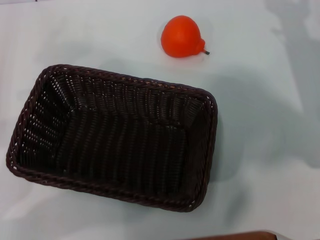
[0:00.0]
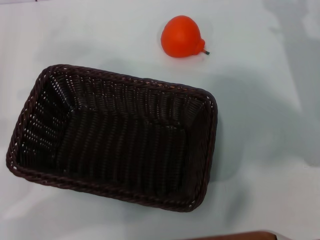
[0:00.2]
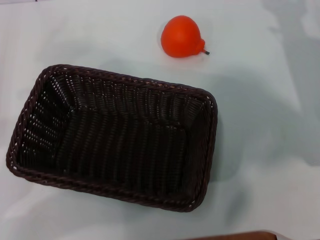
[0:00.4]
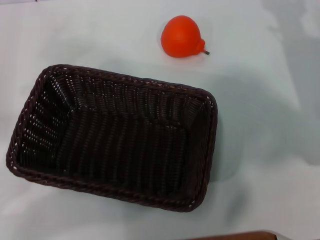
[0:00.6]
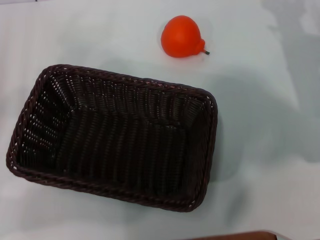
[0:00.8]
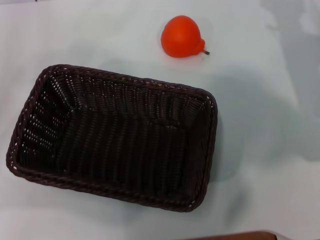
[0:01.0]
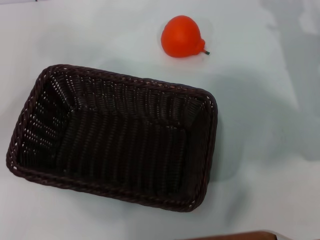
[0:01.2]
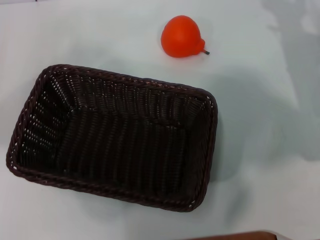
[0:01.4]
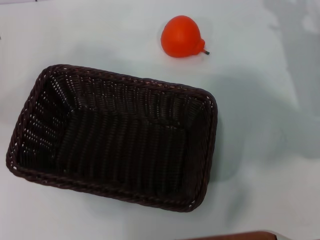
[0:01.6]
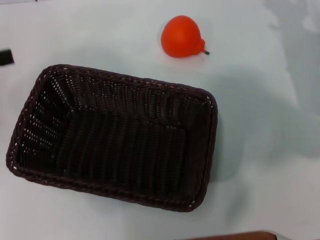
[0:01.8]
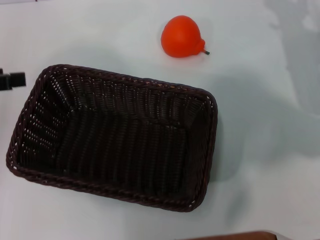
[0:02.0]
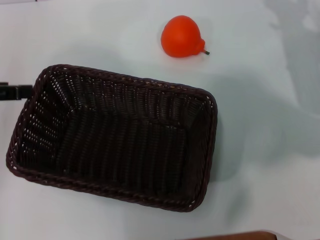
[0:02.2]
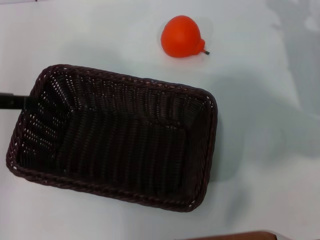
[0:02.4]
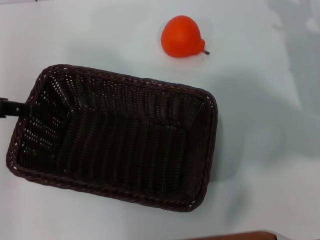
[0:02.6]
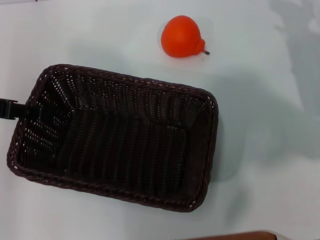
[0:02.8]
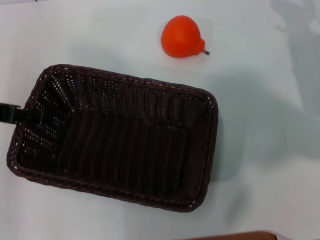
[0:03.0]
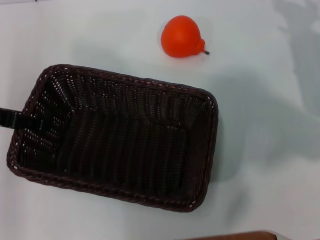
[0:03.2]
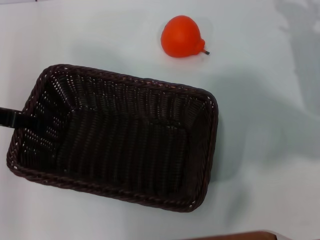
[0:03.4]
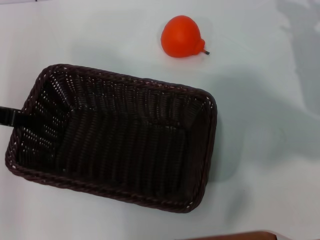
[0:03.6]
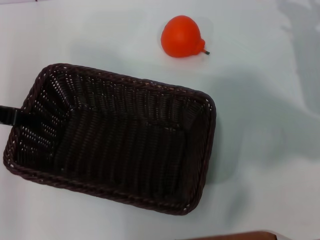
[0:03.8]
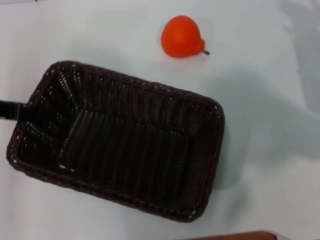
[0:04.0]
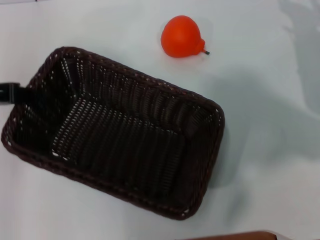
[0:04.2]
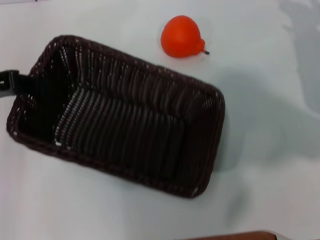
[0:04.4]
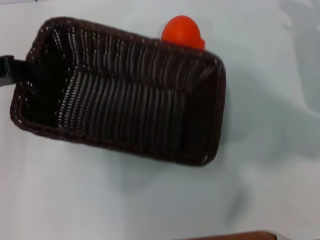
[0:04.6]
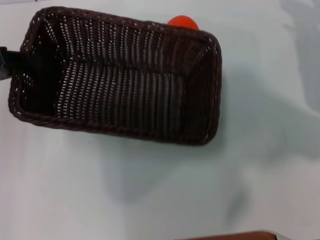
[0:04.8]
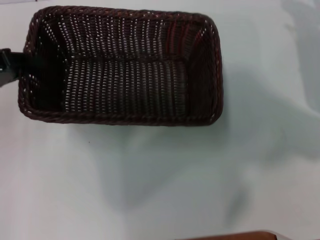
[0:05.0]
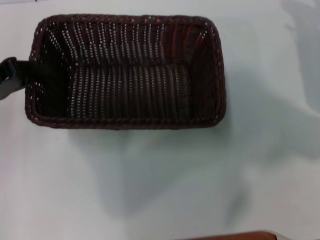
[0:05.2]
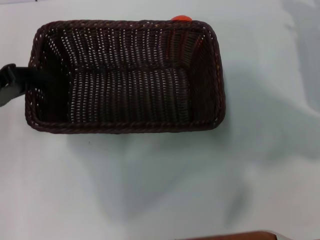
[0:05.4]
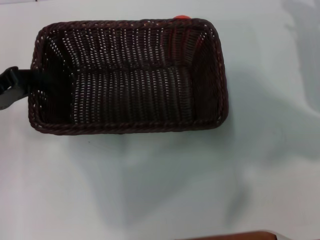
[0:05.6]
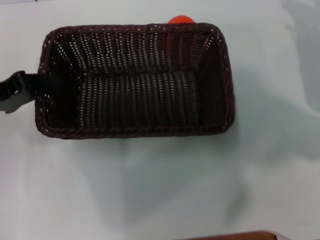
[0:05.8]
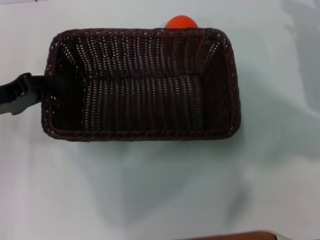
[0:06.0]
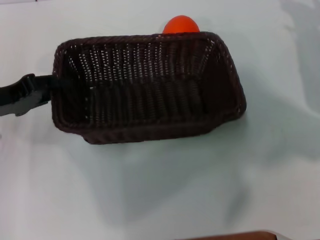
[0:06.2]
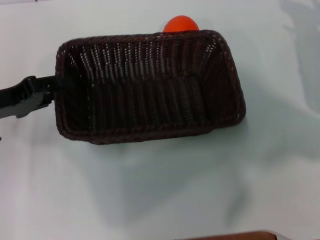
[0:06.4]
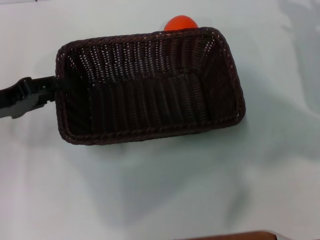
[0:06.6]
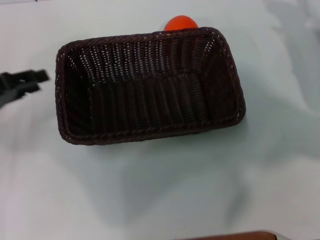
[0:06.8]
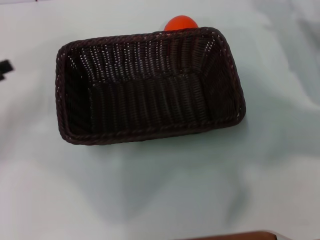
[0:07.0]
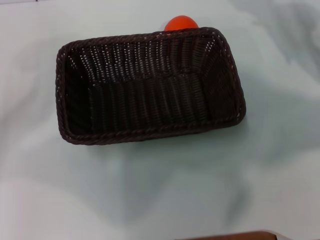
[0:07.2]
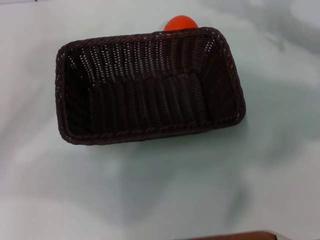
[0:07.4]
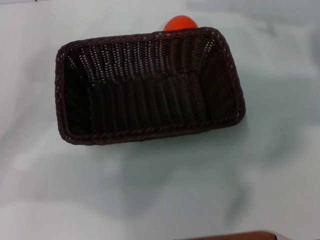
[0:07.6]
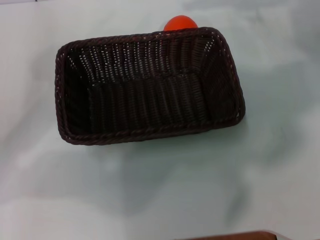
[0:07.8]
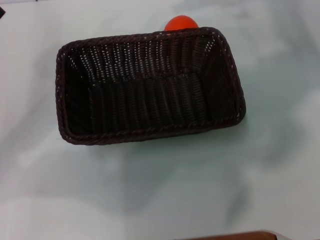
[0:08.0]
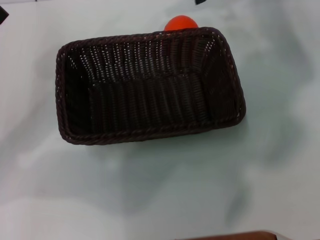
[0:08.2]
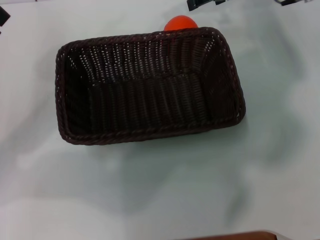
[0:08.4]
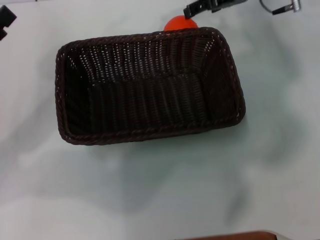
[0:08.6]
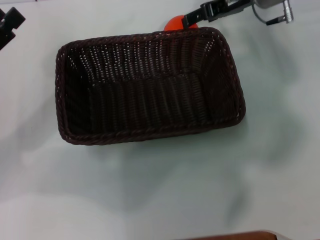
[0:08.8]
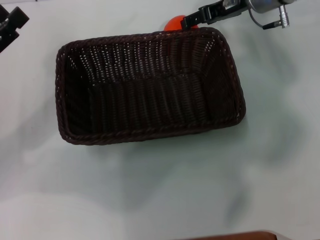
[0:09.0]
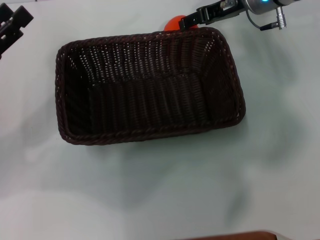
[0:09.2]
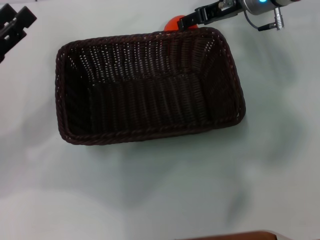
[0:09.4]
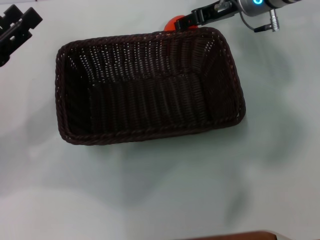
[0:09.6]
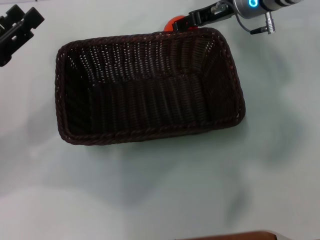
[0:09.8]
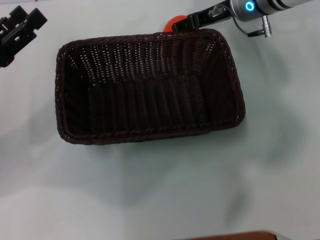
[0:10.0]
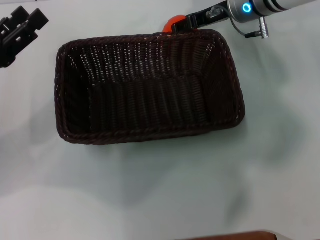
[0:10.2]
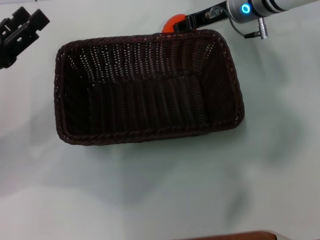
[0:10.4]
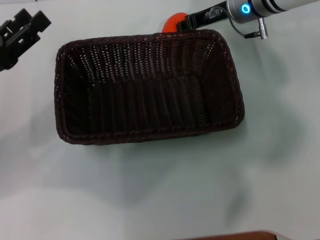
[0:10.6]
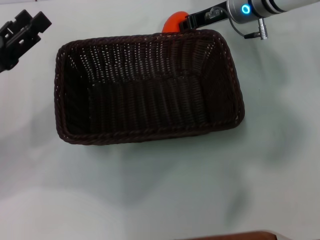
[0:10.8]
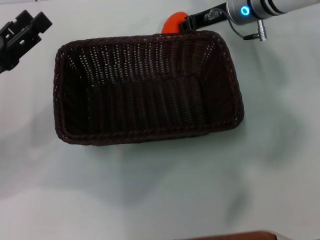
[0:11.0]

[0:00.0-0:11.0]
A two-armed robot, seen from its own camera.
Task of the whole recording: the left gripper pick up the black basket and place it horizontally in the middle of the table, the right gripper pick up the orange and place it into the black basket.
Step, 0:00.0 to 0:04.4: Pick up the dark basket with the left gripper.
Step, 0:04.6 to 0:06.8: Place the dark basket in the center of view with the left gripper.
0:00.0 to 0:01.6: The left gripper heads upward and forward, covering some 15 cm, and opens.
0:01.6 to 0:03.2: The left gripper travels to the right by roughly 5 cm.
0:03.2 to 0:04.8: The left gripper closes up.
0:04.8 to 0:06.2: The left gripper moves downward, some 5 cm.
0:06.2 to 0:07.8: The right gripper goes roughly 20 cm upward and forward. Meanwhile the left gripper opens.
0:07.8 to 0:09.4: The right gripper travels to the left and downward by some 10 cm.
0:09.4 to 0:11.0: The right gripper closes up.

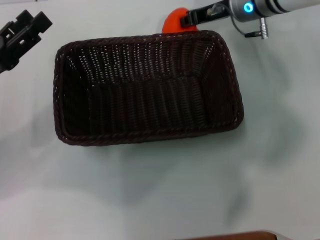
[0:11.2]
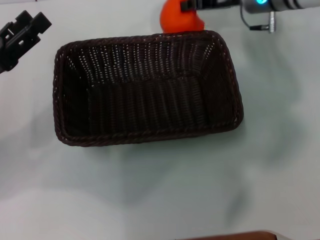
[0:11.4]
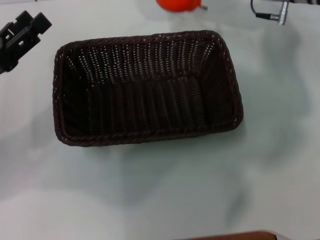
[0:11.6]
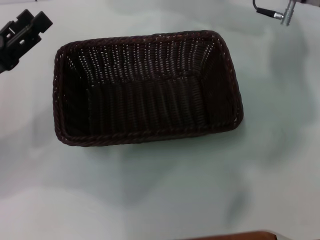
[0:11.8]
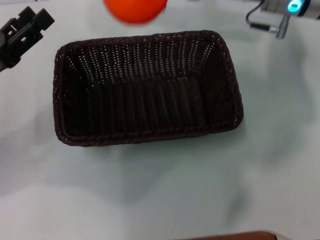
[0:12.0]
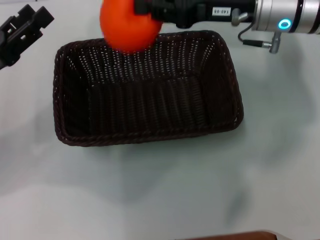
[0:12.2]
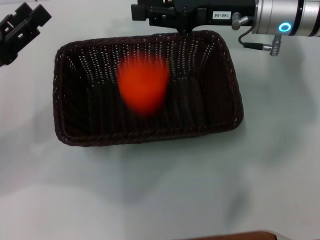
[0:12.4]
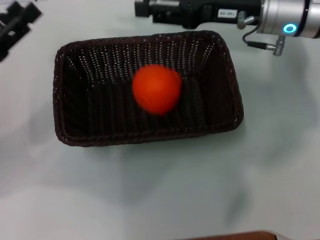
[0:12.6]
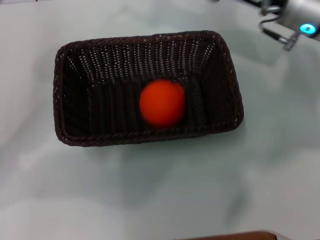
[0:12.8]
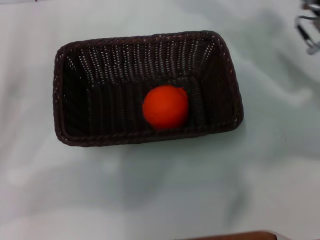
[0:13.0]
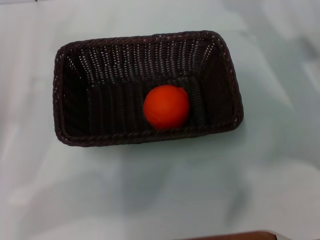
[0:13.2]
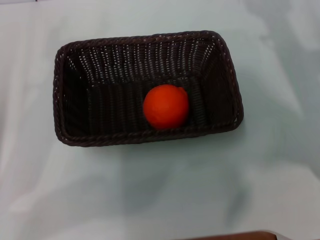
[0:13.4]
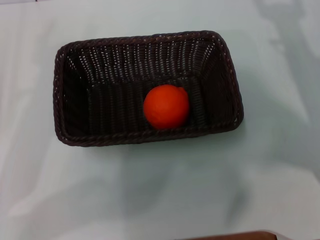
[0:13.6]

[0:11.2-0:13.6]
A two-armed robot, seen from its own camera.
Task of the whole recording: the left gripper pick up the black basket and place it horizontally in the middle of the table, the right gripper pick up the orange and place it into the black basket.
Step, 0:11.8 to 0:12.6: Place the orange into the dark basket with the right gripper.
0:11.2 to 0:12.4: The right gripper is displaced backward by some 5 cm.
0:12.4 to 0:13.6: The right gripper shifts approximately 20 cm to the right, backward and downward, and opens. The left gripper shifts approximately 5 cm backward.
